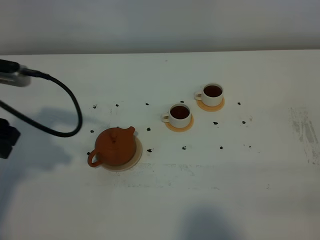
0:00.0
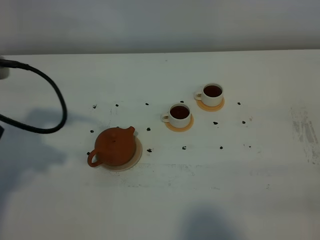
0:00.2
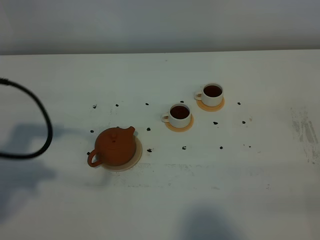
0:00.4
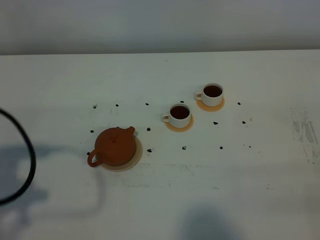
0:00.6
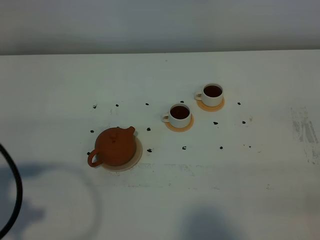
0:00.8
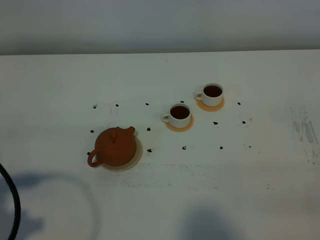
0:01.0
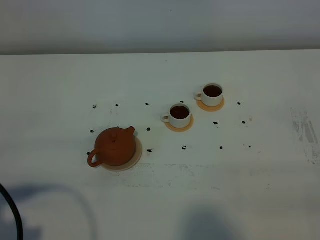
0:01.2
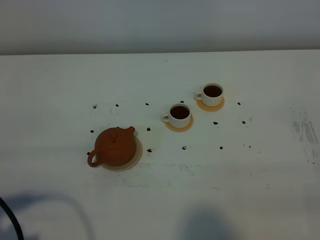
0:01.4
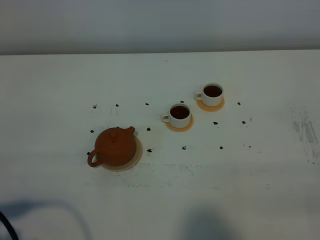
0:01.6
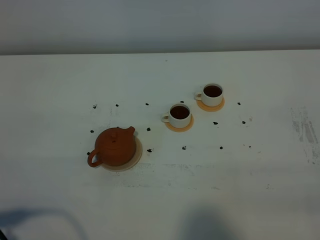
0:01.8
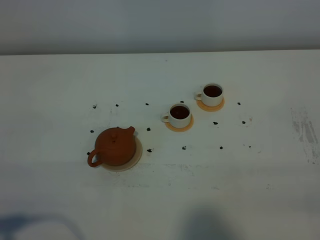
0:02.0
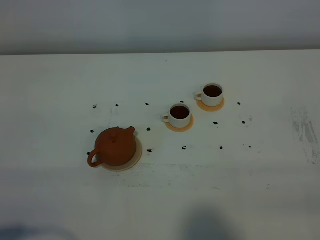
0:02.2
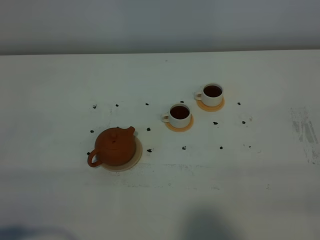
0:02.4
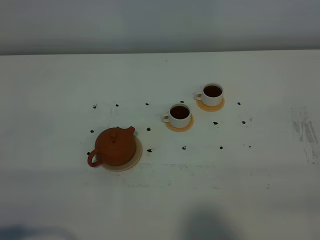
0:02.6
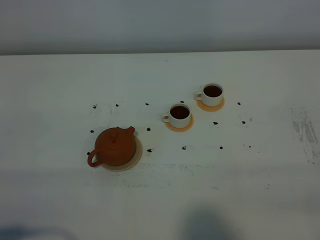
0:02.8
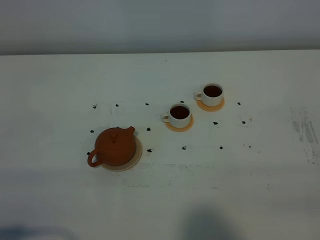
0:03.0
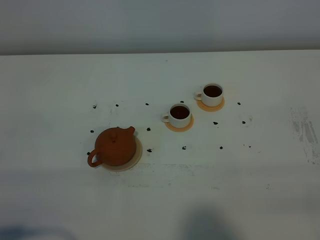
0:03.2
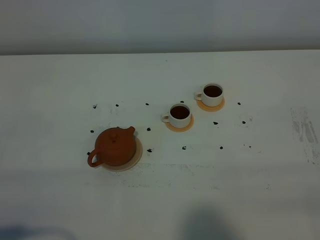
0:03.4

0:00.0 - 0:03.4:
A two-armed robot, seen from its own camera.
Task of the whole recording: grasp the brown teapot and pour the tea into the two white teacups one by one, put the brown teapot back in its original place.
0:00.0 - 0:01.6: The left gripper shifts approximately 20 cm backward.
0:01.6 - 0:03.4: The grippers move only a little.

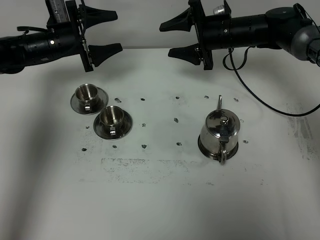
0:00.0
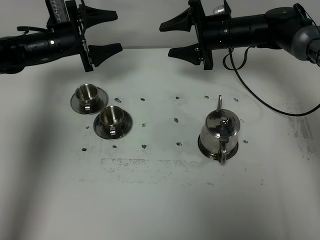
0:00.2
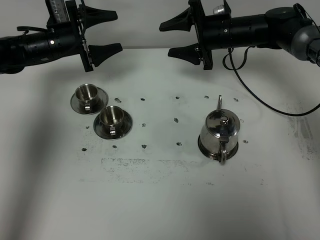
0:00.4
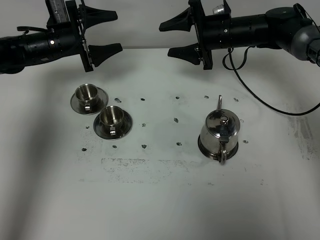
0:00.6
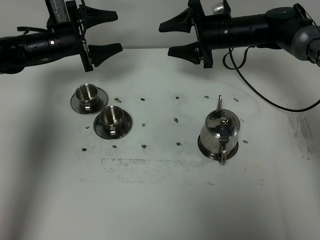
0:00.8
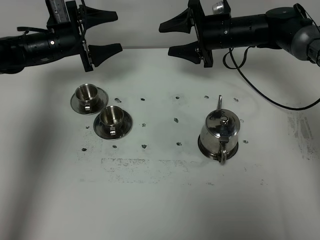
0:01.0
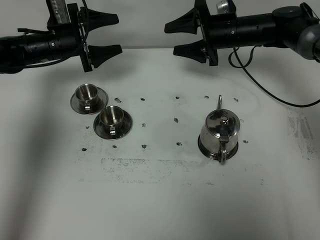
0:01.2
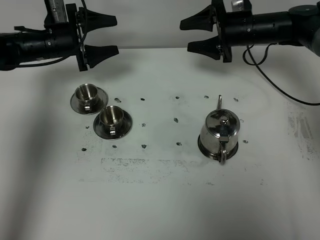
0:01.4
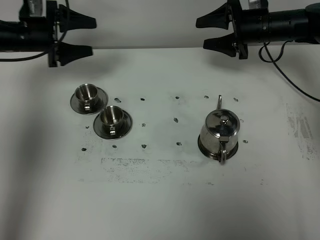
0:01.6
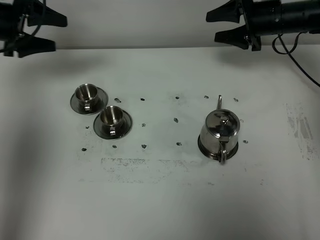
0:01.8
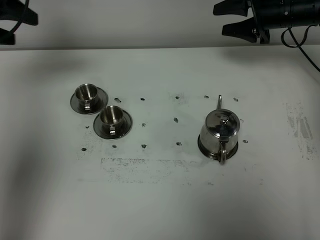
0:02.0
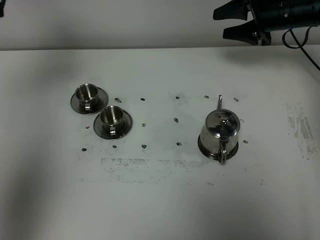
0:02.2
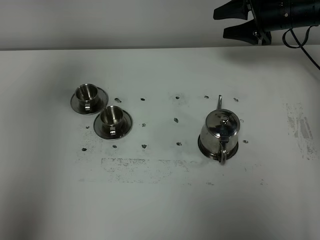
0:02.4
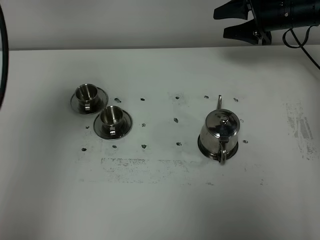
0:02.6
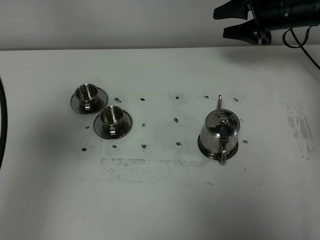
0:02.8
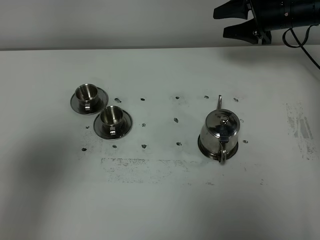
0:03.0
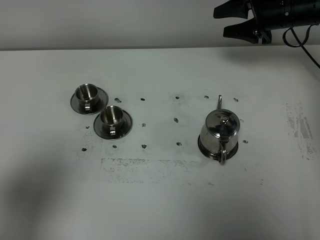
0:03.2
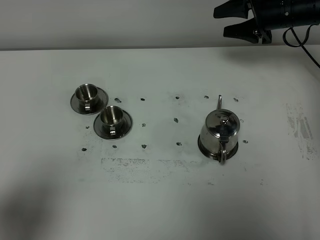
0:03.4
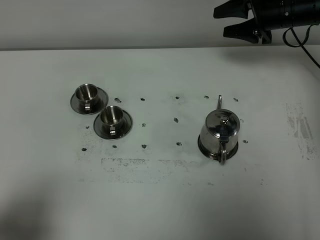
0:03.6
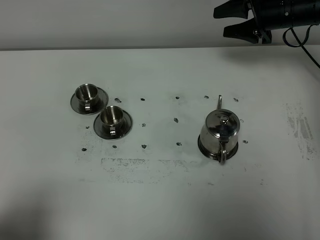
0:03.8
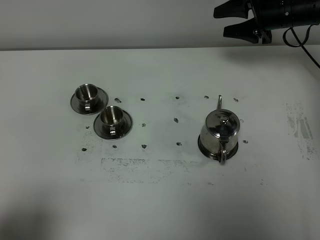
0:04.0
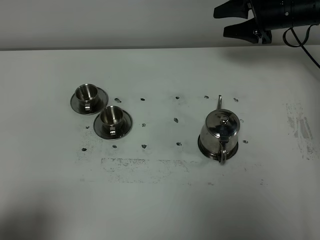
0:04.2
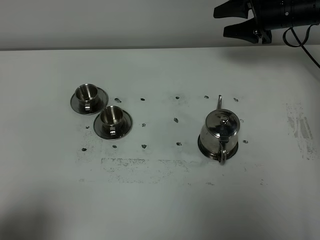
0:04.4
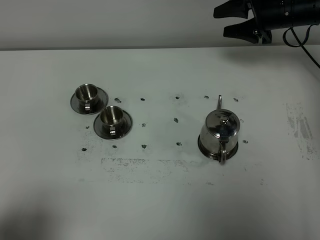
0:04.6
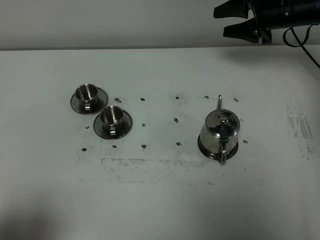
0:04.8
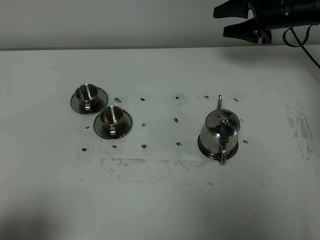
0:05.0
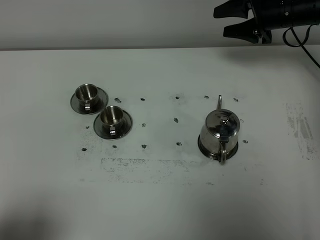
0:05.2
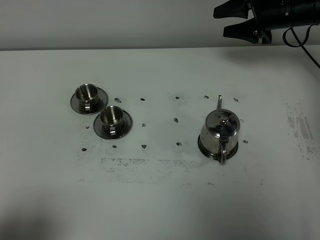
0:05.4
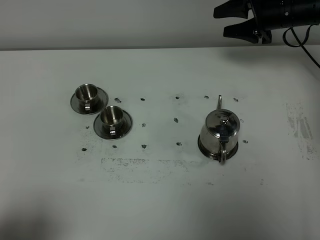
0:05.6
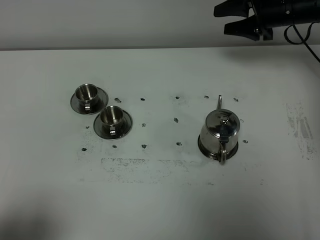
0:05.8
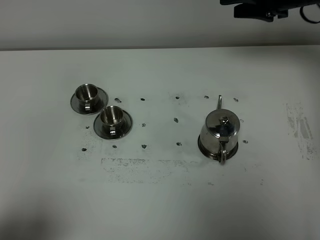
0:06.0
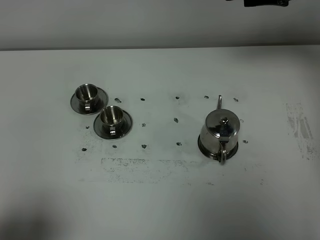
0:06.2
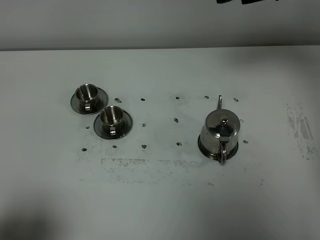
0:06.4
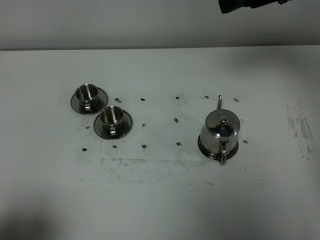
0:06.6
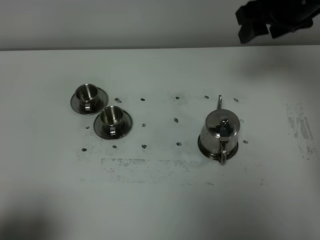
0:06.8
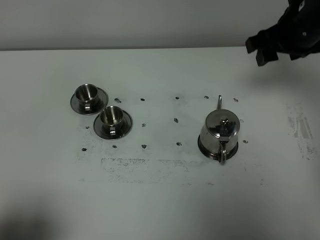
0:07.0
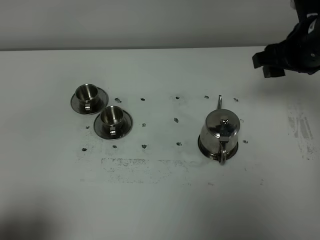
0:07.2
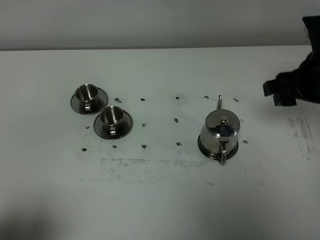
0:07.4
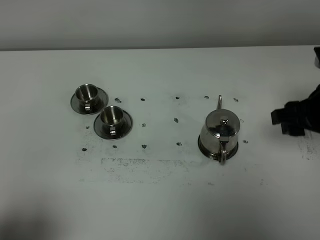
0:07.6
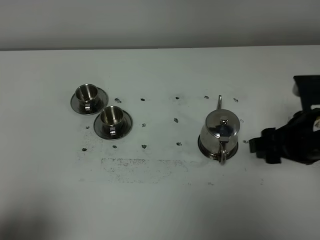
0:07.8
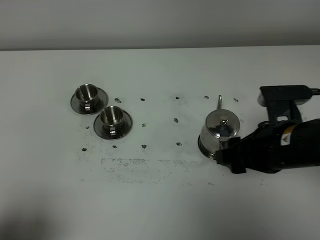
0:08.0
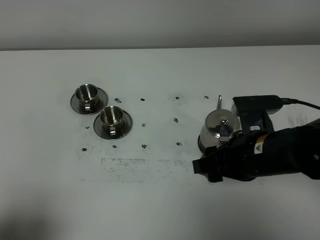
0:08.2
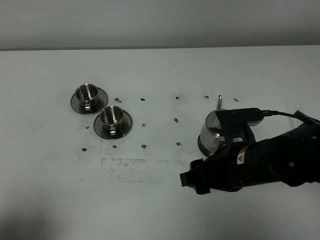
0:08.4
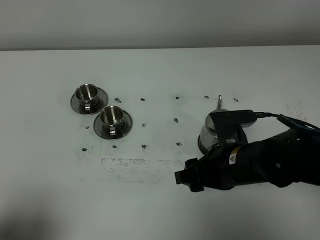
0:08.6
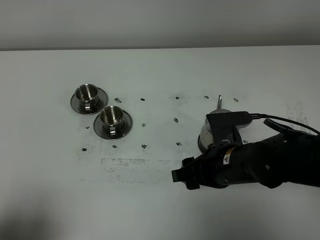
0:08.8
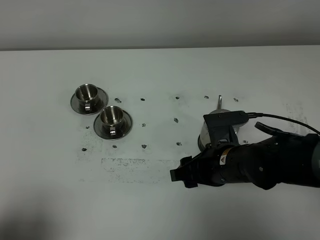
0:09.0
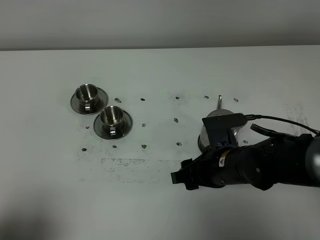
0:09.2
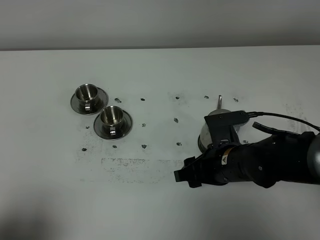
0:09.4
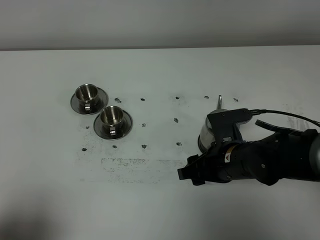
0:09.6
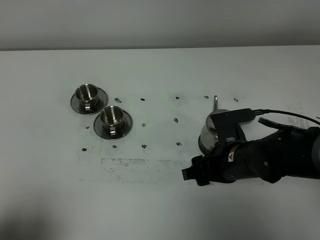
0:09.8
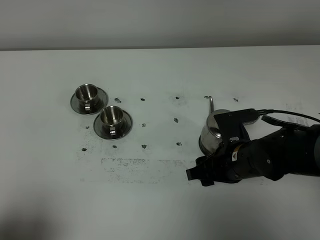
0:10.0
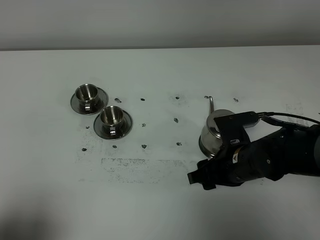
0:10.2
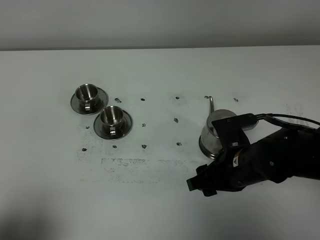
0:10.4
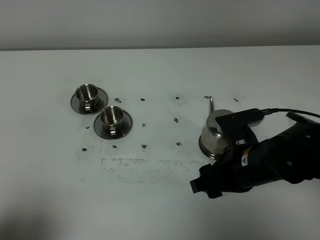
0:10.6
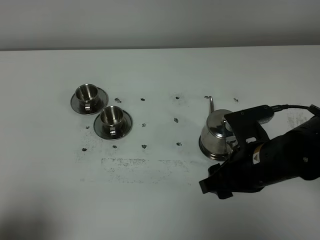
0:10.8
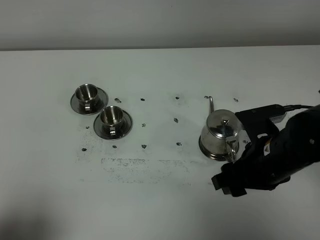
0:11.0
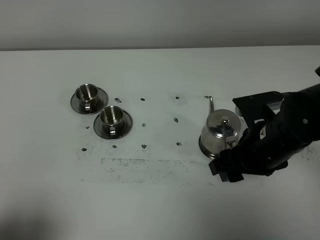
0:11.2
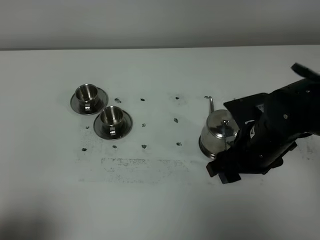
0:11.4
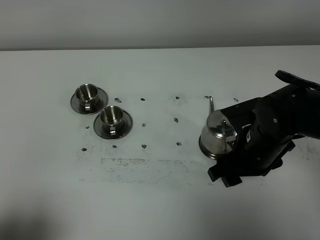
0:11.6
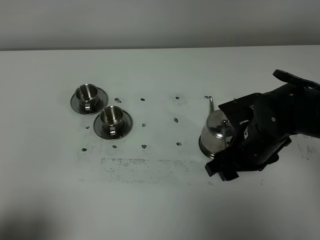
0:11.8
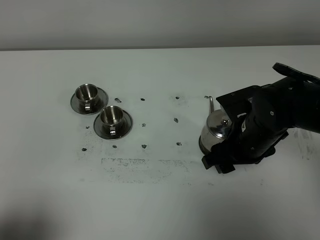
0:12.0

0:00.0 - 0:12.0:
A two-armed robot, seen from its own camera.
Task of the whole recording: grasp the stainless steel teapot and pour the tea into the two stainless steel teacups one by one, put the stainless steel teapot back in its original place.
0:00.0 - 0:01.6: The right gripper heads to the right, covering roughly 10 cm, while the left gripper is displaced to the left by roughly 5 cm.
0:01.6 - 0:03.0: The left gripper travels backward and upward by approximately 40 cm.
0:03.0 - 0:04.4: The left gripper travels downward and backward by about 15 cm.
0:04.4 - 0:06.0: The right gripper shifts roughly 10 cm upward.
0:06.0 - 0:07.6: The right gripper moves backward, about 20 cm.
0:07.6 - 0:09.0: The right gripper goes approximately 20 cm to the left and downward.
0:09.0 - 0:10.4: There are only small adjustments of the grippers.
0:10.4 - 0:12.0: The right gripper moves roughly 5 cm.

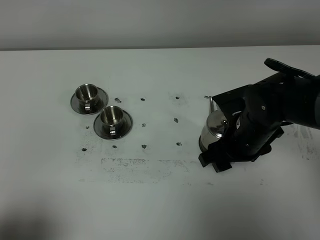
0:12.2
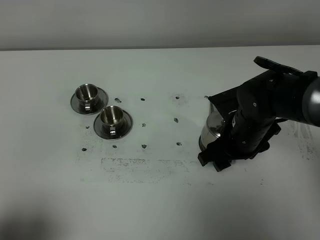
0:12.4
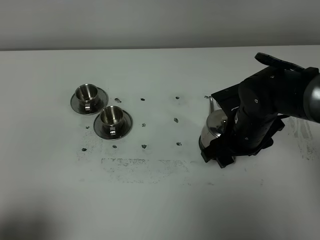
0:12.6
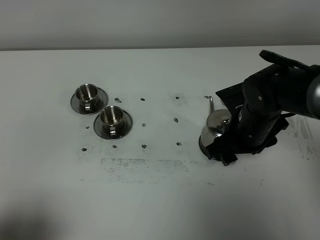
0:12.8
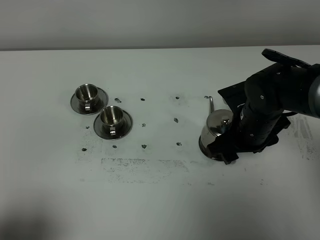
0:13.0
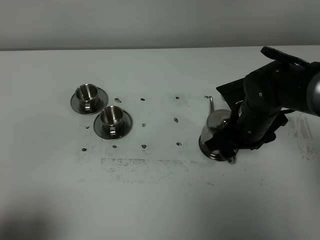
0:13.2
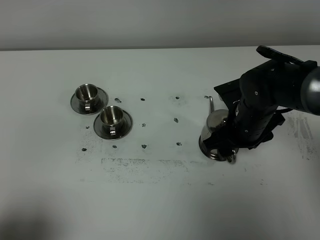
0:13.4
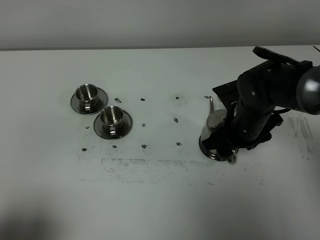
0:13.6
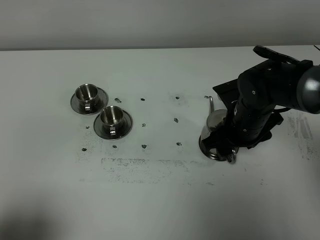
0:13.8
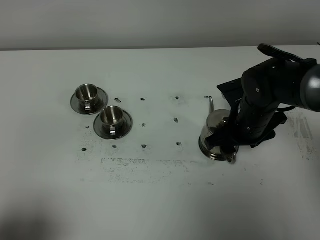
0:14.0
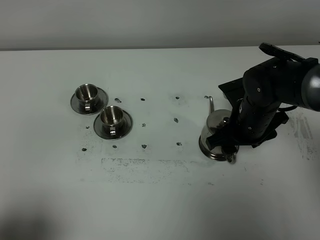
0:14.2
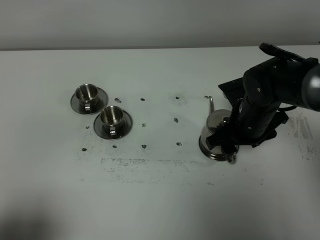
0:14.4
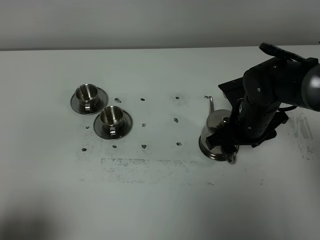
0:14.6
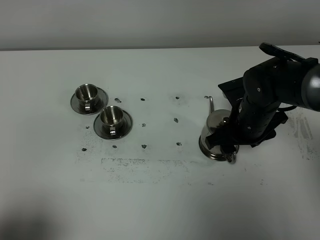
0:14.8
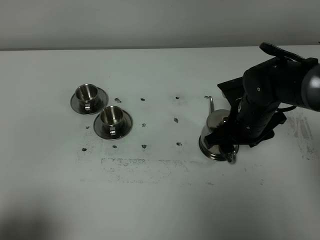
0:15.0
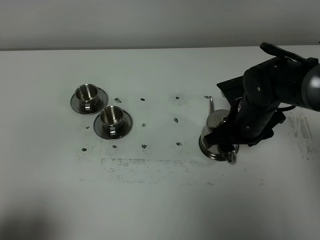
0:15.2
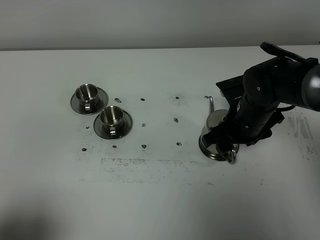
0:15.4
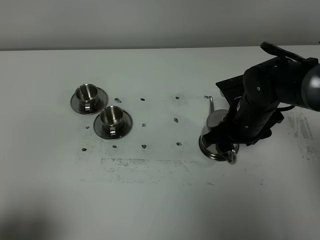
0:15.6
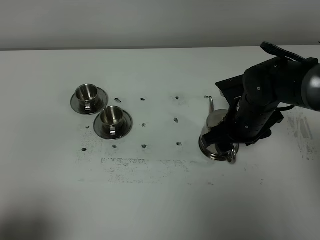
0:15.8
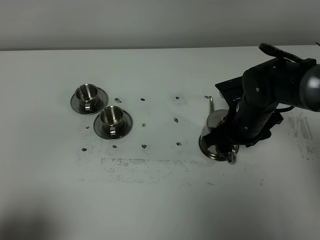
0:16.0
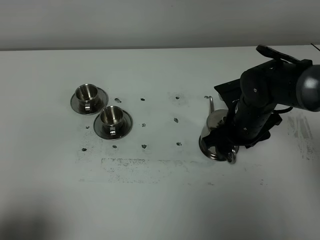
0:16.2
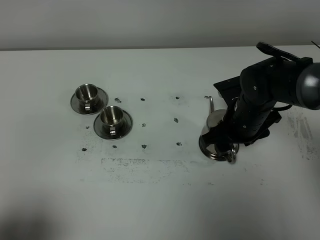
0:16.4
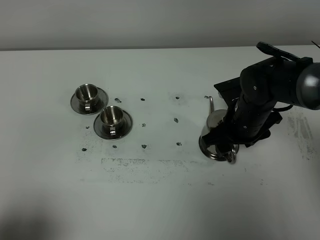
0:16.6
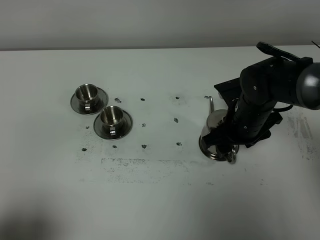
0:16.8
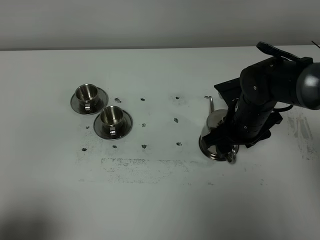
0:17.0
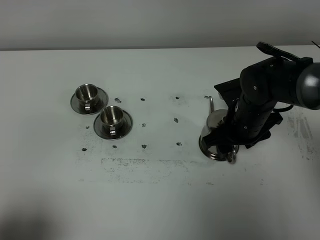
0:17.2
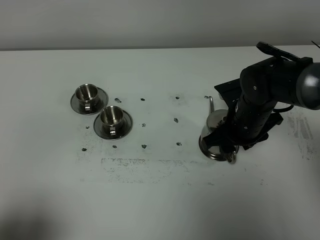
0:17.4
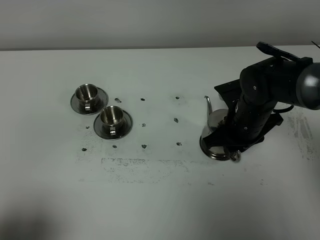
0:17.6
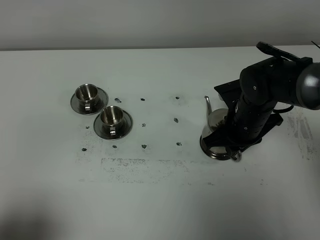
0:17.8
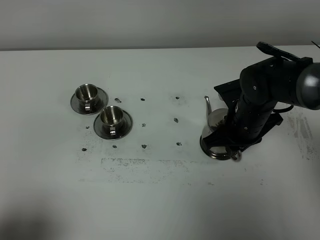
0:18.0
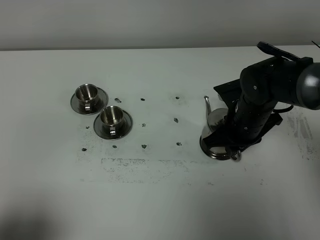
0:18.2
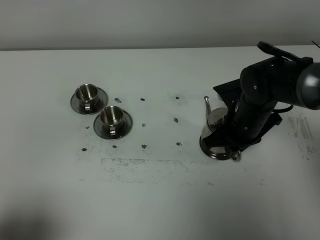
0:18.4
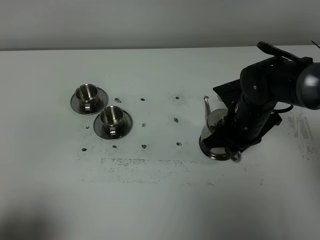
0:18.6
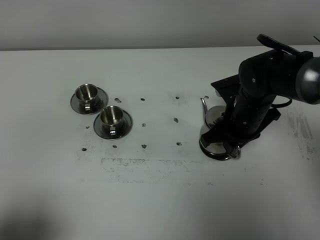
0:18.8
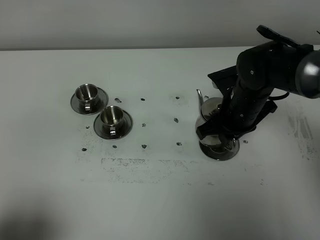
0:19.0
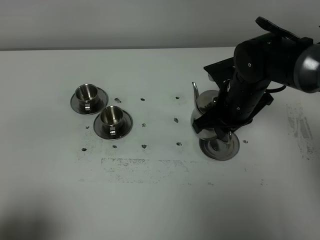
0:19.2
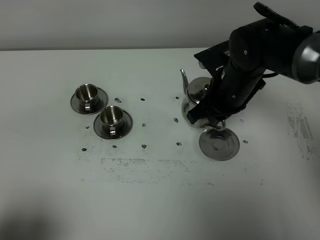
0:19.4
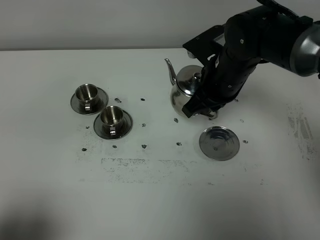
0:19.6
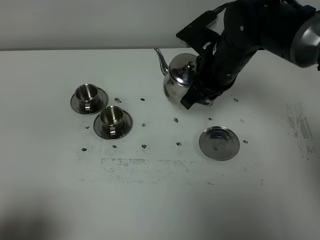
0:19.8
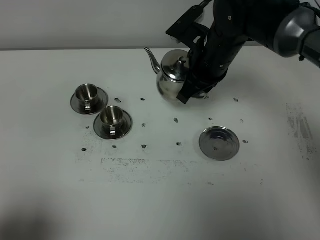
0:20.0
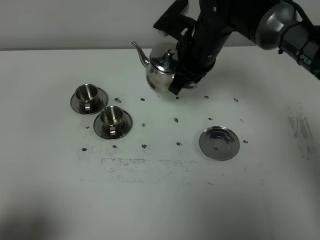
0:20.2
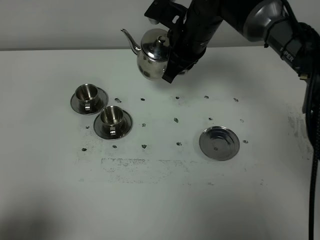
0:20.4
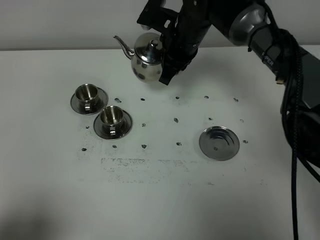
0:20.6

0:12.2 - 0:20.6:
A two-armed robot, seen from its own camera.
Task of the whole recording: grasp the stainless steel teapot and pour the tea into the two stainless steel teacups one by one, put the stainless steel teapot back in its original place.
Step, 0:12.2 - 0:18.8: Pick up the teapot with the right gripper.
0:12.2 - 0:13.6: There are only small adjustments of the grippers.
0:13.6 - 0:16.4: Neither gripper changes place.
0:16.4 - 0:17.8: The right gripper closes.
0:17.8 - 0:19.2: The grippers move only a little.
0:19.2 - 0:20.6: The right gripper shifts roughly 15 cm forward and to the left.
